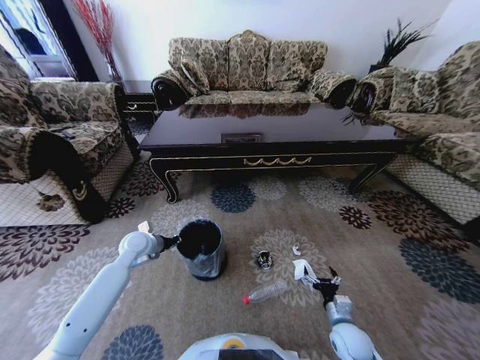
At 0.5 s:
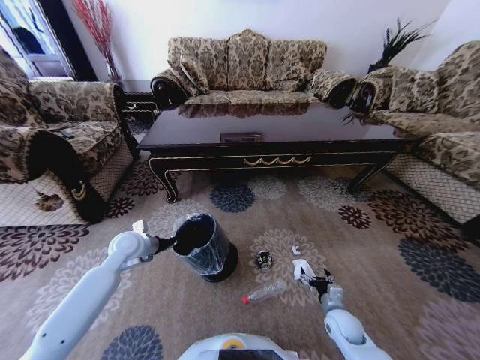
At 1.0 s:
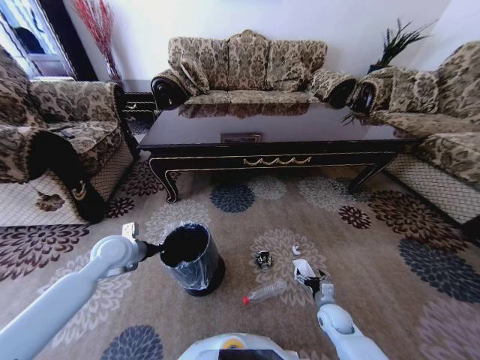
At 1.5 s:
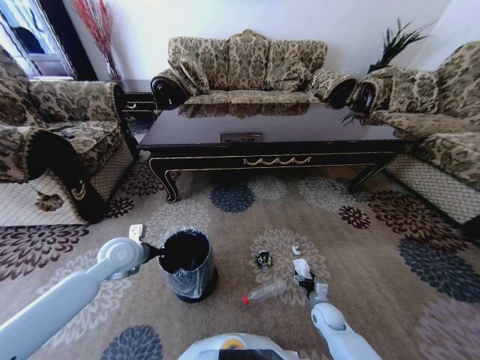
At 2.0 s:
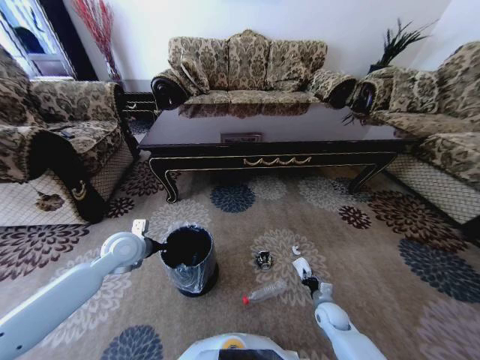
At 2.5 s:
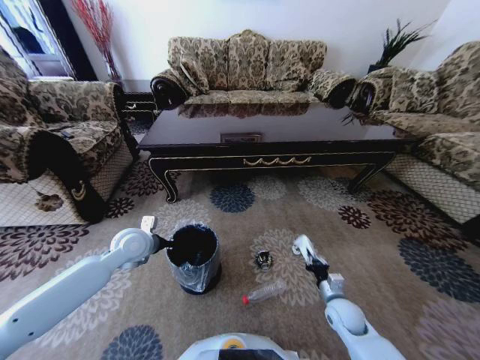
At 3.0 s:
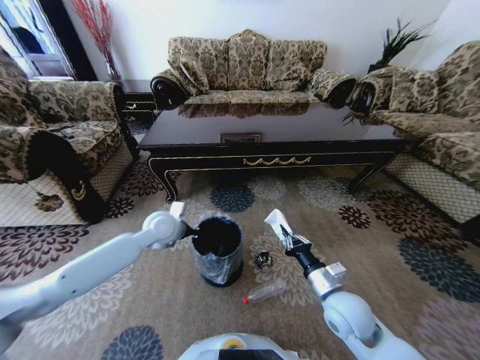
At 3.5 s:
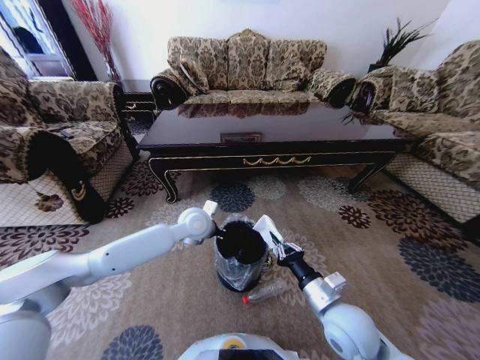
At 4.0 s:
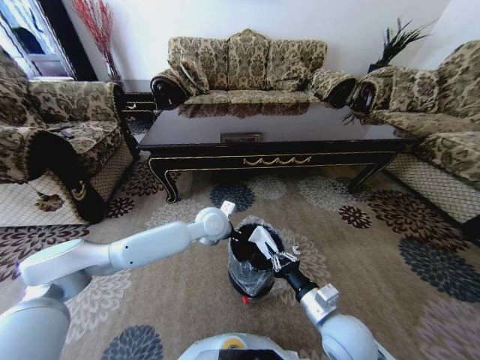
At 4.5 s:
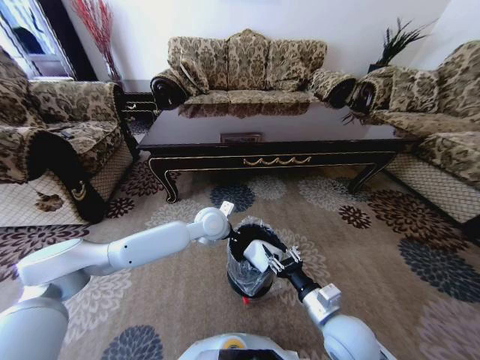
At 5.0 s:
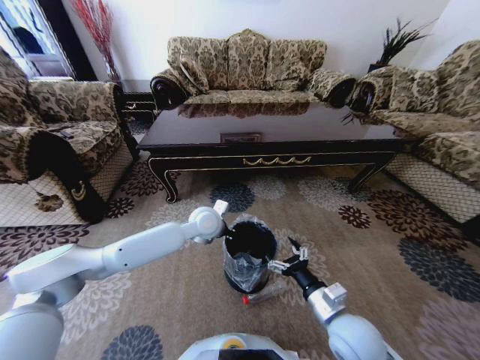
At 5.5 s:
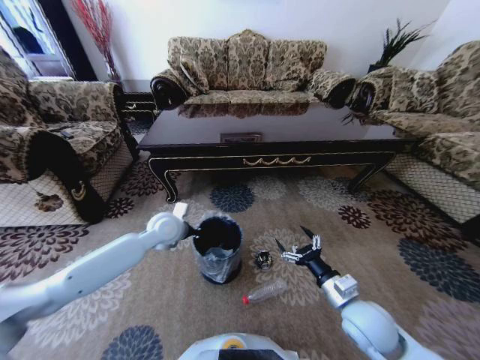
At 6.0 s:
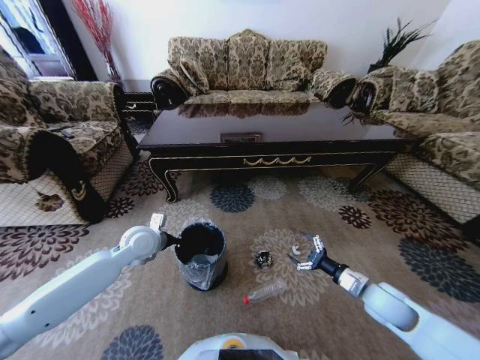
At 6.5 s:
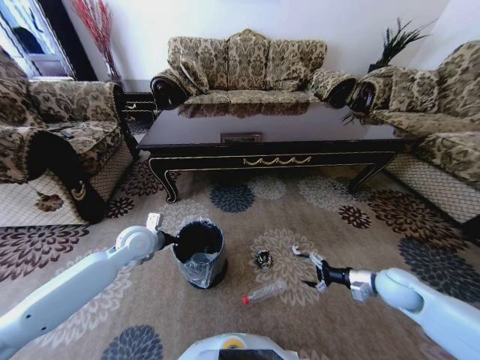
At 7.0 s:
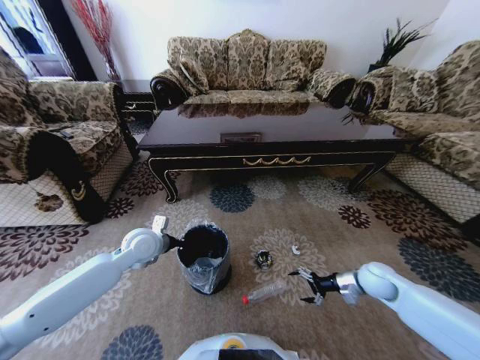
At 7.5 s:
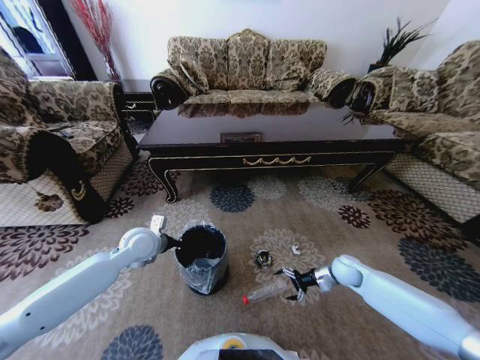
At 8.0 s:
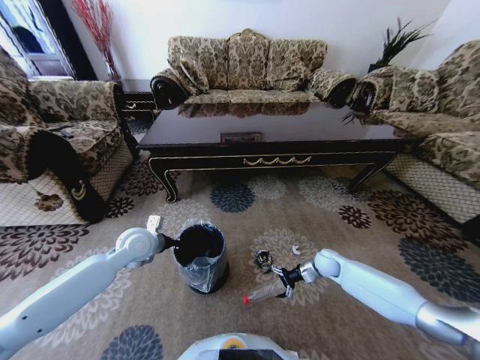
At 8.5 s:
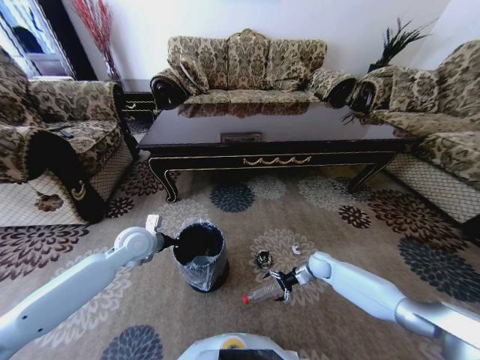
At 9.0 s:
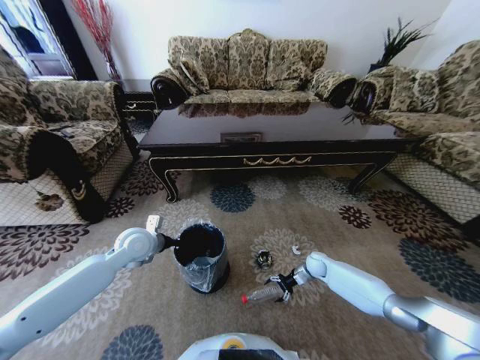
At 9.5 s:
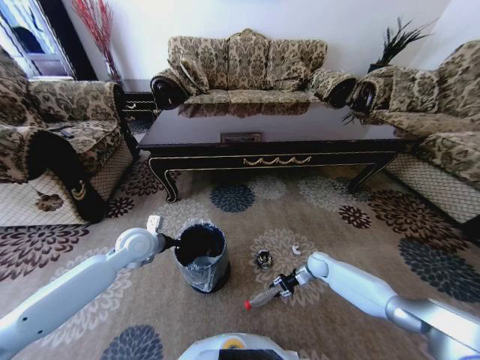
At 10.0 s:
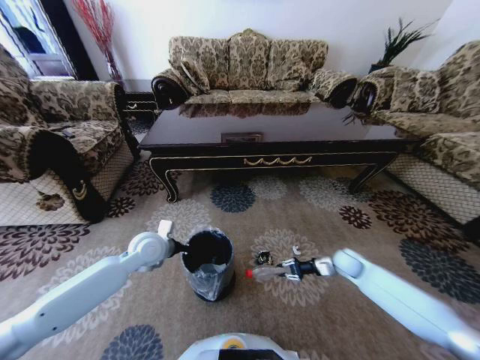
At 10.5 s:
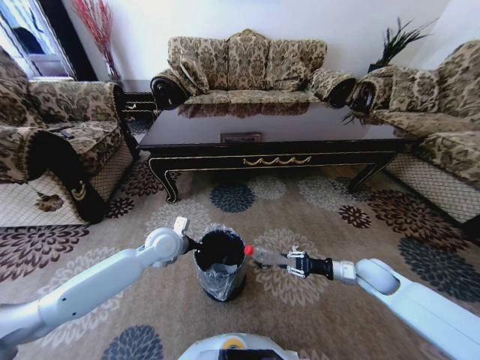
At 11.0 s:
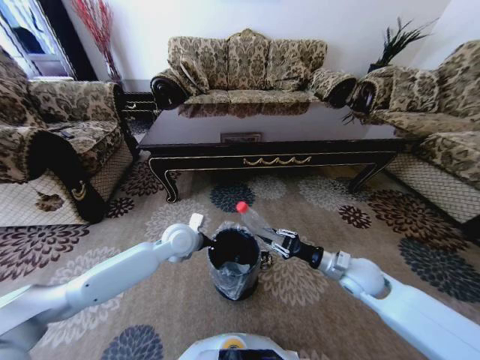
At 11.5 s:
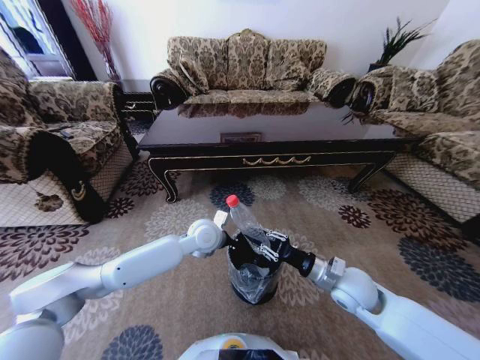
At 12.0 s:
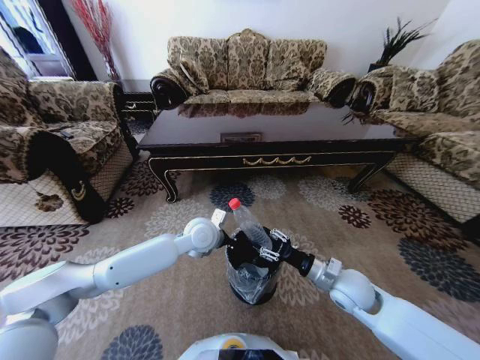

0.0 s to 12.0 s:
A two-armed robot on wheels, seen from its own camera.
Task of the whole recording: Move to the front of the table and pick up the trash from the floor, then place it into the trash bin.
0.0 to 2.0 s: The right gripper is displaced forward and downward by approximately 10 cm, and closes, while the left gripper heads upward, covering some 5 cm.
2.0 to 4.0 s: The left gripper is displaced to the right by approximately 25 cm, while the right gripper goes some 25 cm upward and to the left.
4.0 to 6.0 s: The right gripper moves to the right and forward, approximately 20 cm, and opens. The left gripper heads to the left, covering about 20 cm.
6.0 to 8.0 s: The right gripper goes some 20 cm forward and downward.
8.0 to 10.0 s: The right gripper heads to the right, covering about 5 cm, and closes its fingers.
10.0 to 12.0 s: The left gripper is displaced to the right by approximately 15 cm; the right gripper moves to the left, backward and upward, some 20 cm.

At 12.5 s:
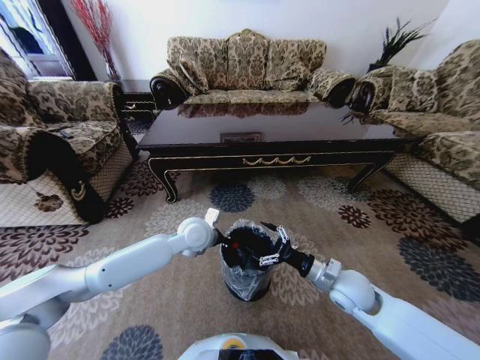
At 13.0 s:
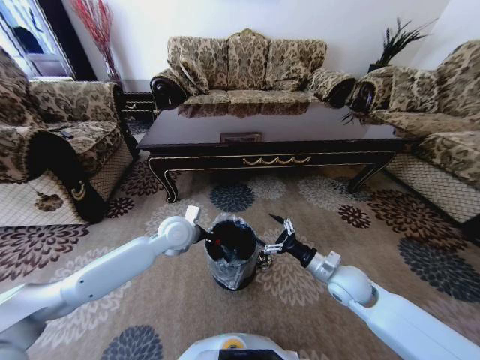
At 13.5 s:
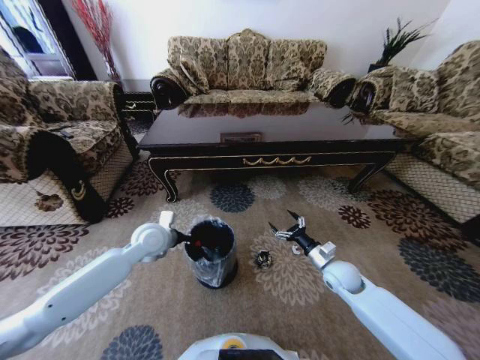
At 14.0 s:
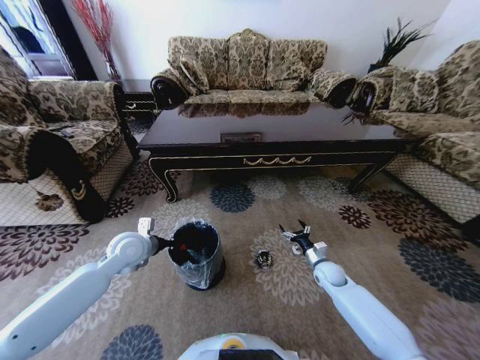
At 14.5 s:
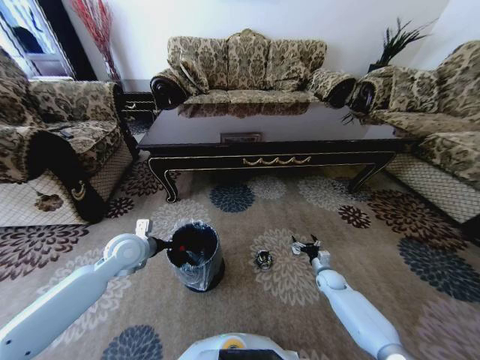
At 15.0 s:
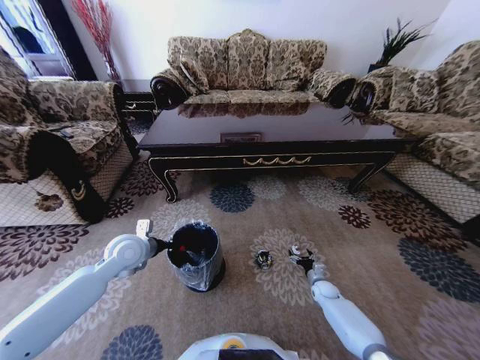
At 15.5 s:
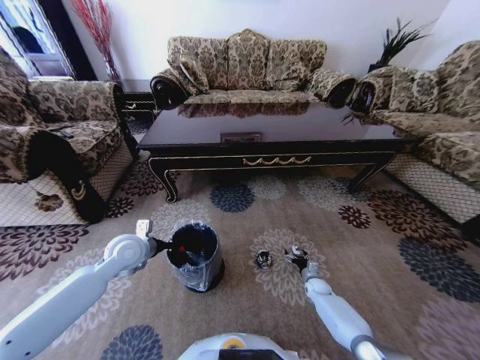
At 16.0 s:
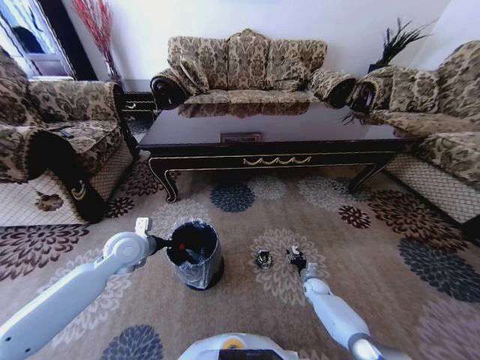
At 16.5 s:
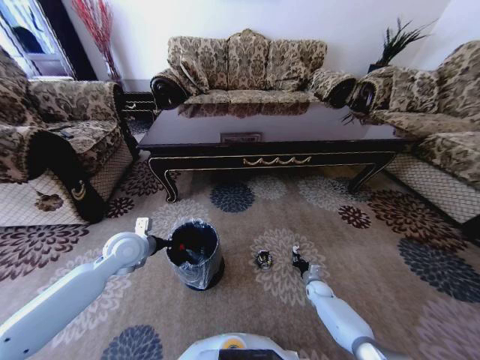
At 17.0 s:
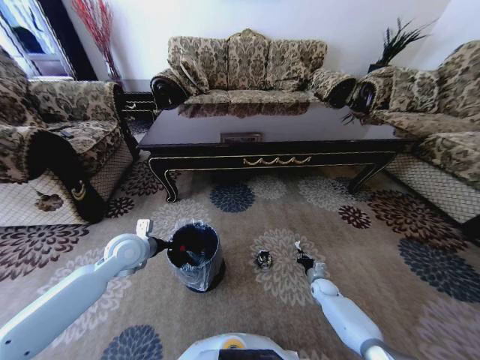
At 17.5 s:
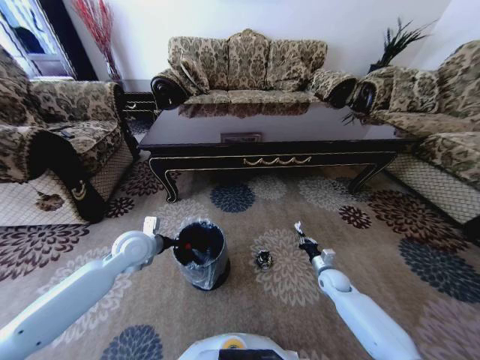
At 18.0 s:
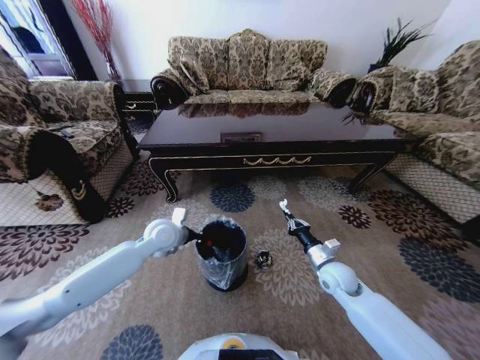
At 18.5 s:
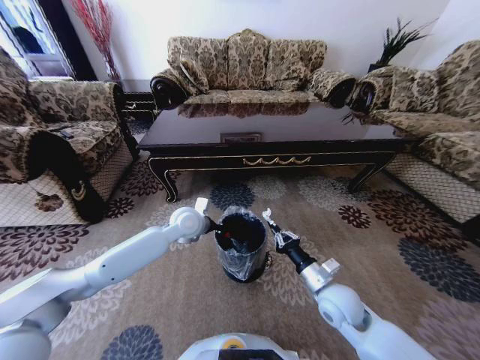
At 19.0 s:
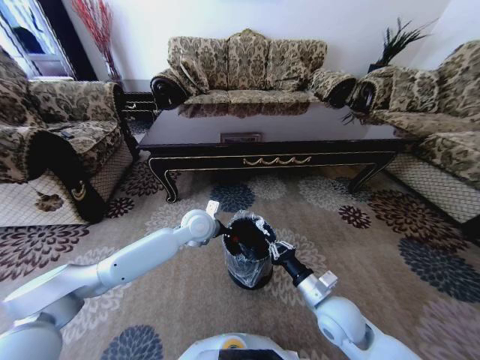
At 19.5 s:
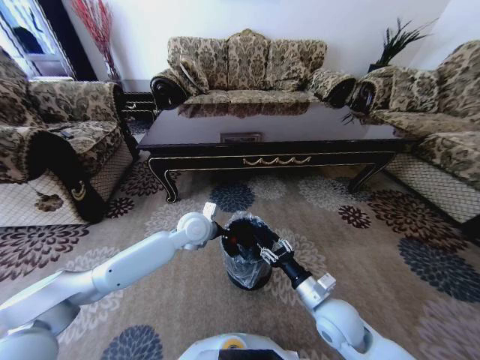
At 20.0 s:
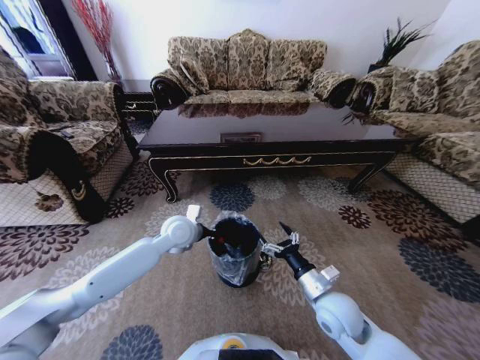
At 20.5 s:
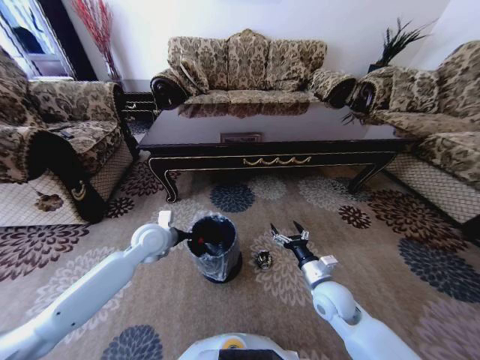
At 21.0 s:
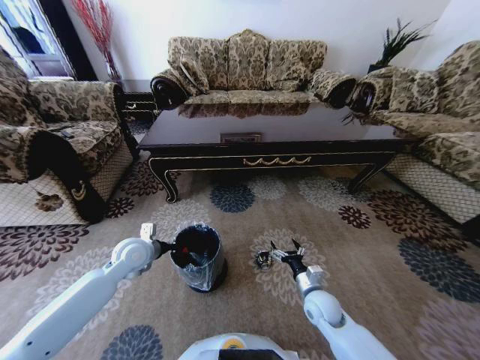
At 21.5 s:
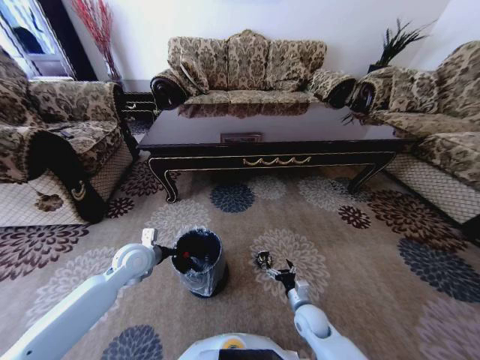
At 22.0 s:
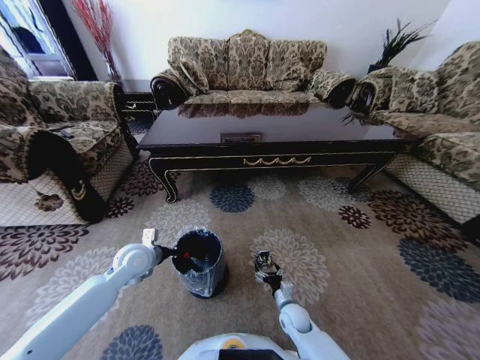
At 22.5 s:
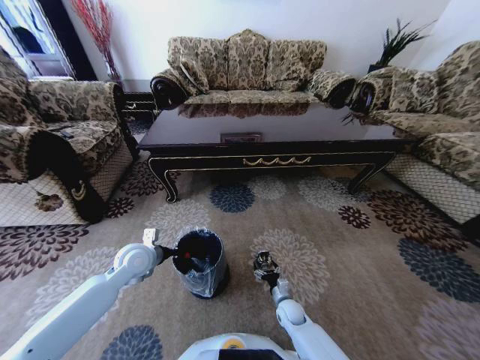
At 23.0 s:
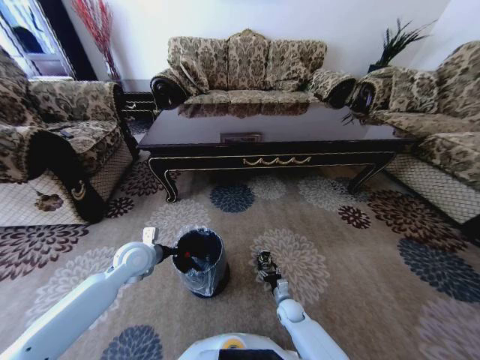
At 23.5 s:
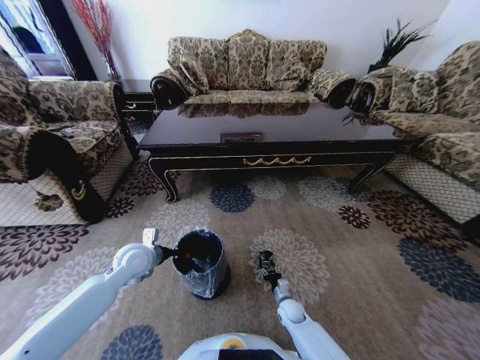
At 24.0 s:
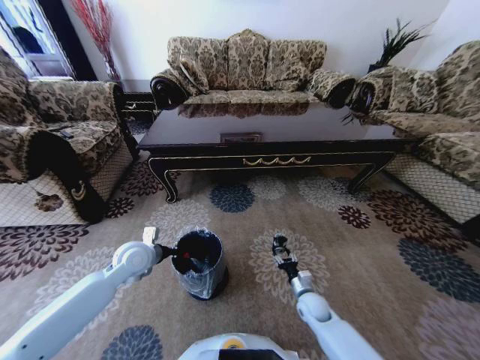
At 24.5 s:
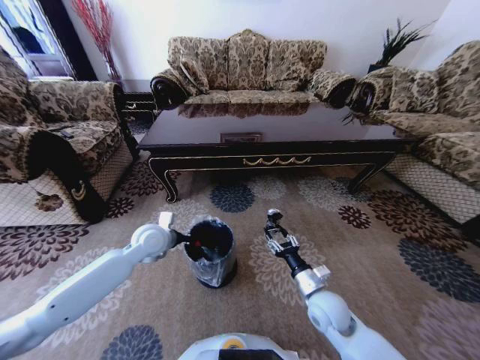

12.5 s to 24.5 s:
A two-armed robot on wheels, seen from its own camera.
Task of the whole recording: Move to the front of the table and pick up the trash from the floor, then place it into the trash bin.
12.5 to 14.5 s: The left gripper travels to the left by some 20 cm. Meanwhile the right gripper heads downward, to the right and forward, covering some 25 cm.
14.5 to 16.5 s: The right gripper travels downward by roughly 10 cm, and closes up.
16.5 to 18.5 s: The left gripper is displaced to the right and forward by approximately 20 cm, while the right gripper moves upward, backward and to the left, about 35 cm.
18.5 to 20.5 s: The left gripper goes about 10 cm to the left. The right gripper opens.
20.5 to 22.5 s: The left gripper changes place by roughly 5 cm; the right gripper is displaced downward by about 25 cm.
22.5 to 24.5 s: The right gripper moves upward, some 20 cm, and closes up; the left gripper changes place by roughly 5 cm.

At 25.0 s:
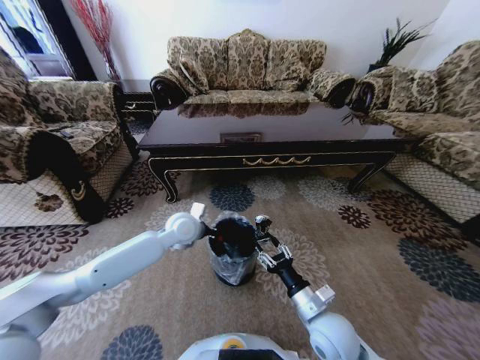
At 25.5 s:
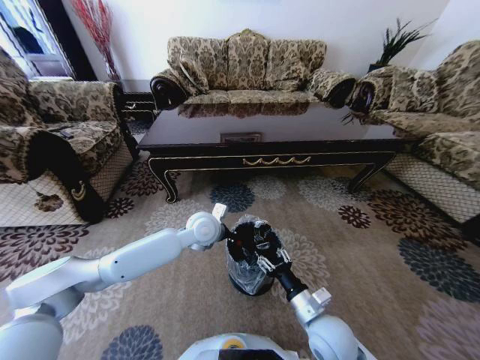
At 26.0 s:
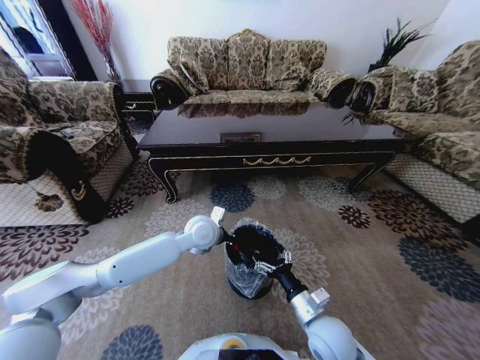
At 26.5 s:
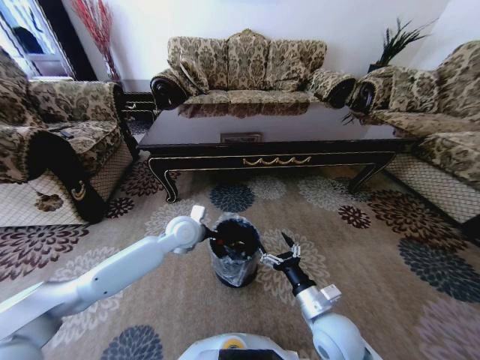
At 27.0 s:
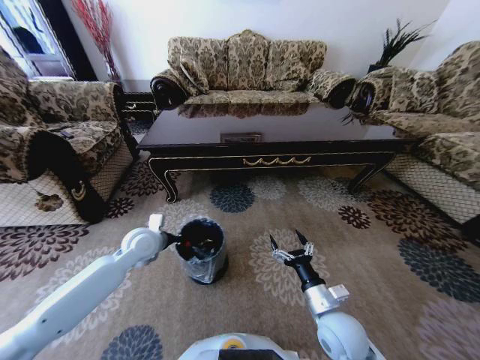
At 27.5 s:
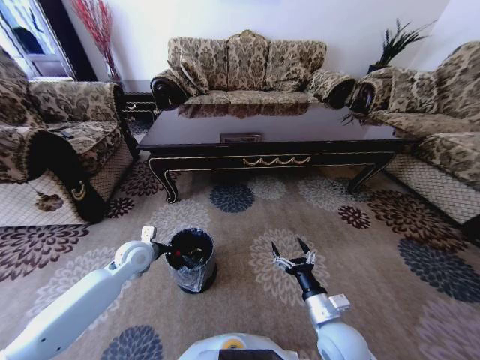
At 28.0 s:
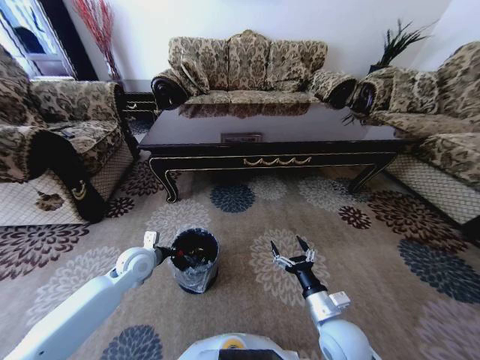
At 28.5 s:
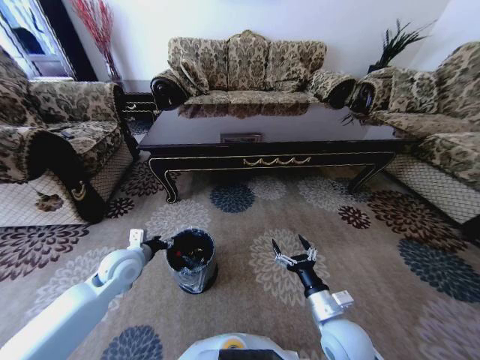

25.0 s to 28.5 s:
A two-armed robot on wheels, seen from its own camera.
Task of the whole recording: Move to the front of the table and pick up the trash from the floor, then place it into the trash bin.
25.0 to 27.0 s: The right gripper opens up. Meanwhile the left gripper travels to the left by about 10 cm.
27.0 to 28.5 s: The left gripper is displaced backward by approximately 5 cm, and opens up.
